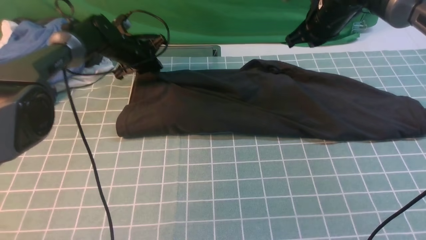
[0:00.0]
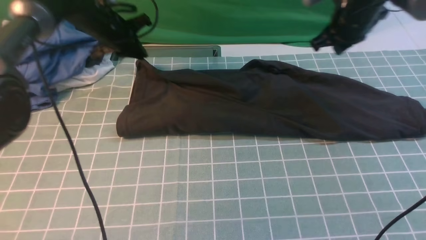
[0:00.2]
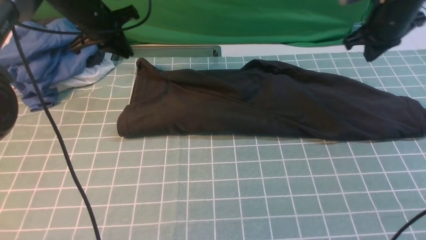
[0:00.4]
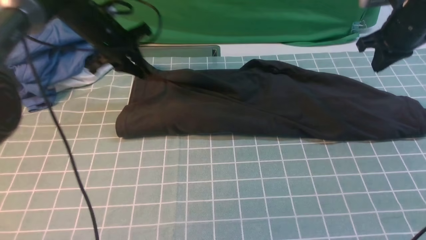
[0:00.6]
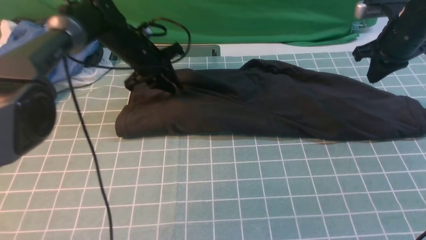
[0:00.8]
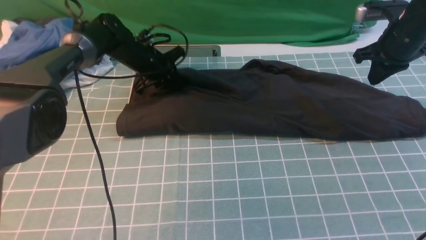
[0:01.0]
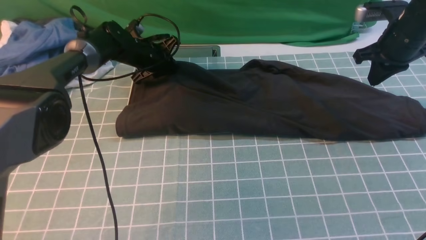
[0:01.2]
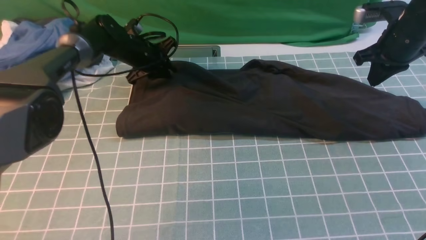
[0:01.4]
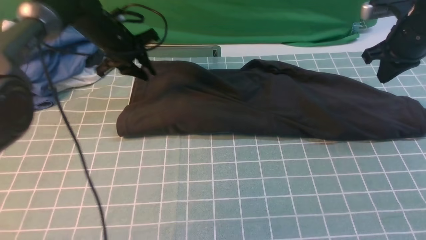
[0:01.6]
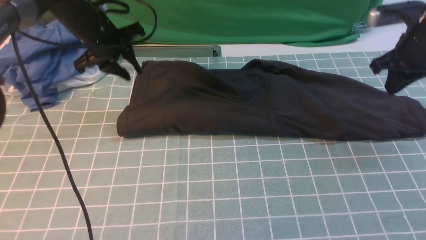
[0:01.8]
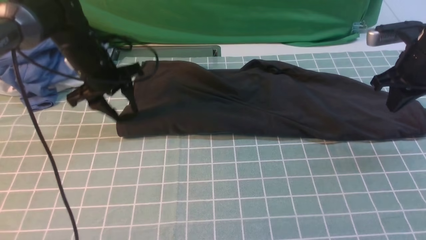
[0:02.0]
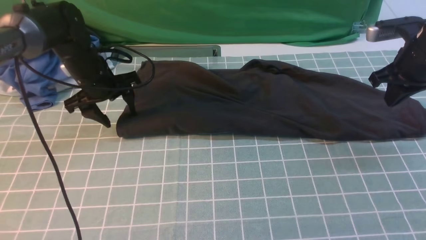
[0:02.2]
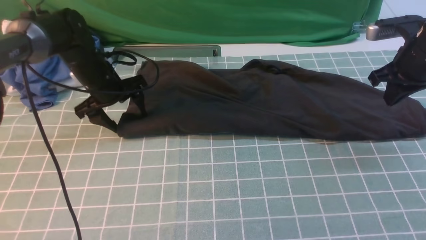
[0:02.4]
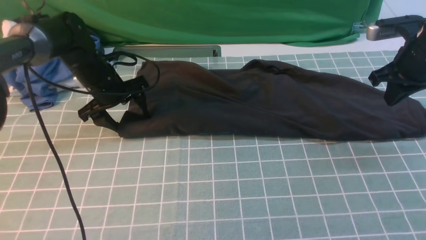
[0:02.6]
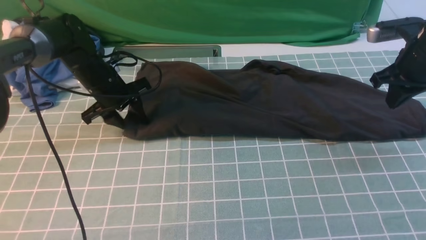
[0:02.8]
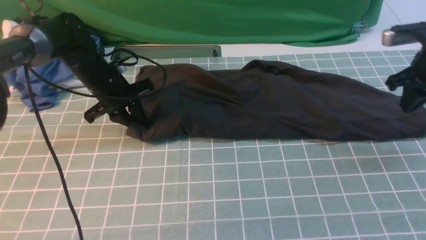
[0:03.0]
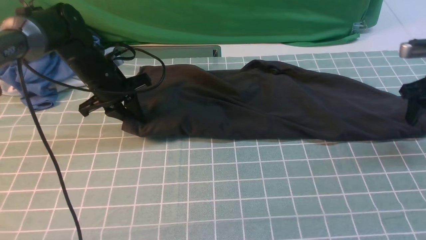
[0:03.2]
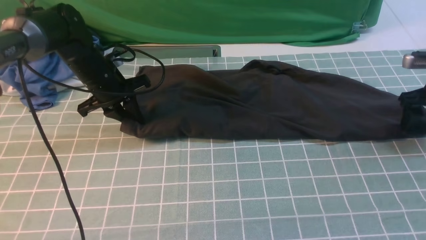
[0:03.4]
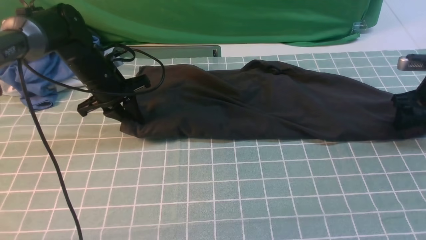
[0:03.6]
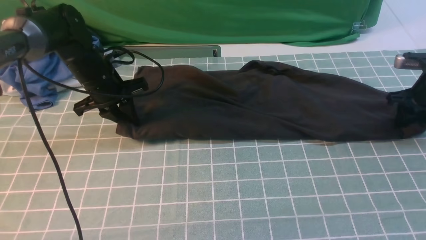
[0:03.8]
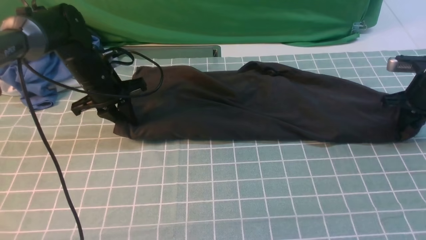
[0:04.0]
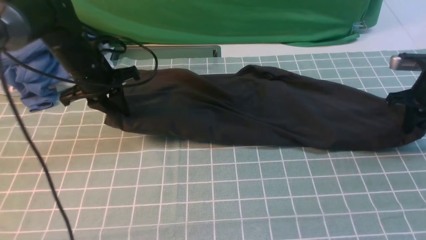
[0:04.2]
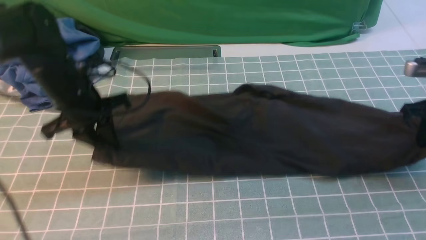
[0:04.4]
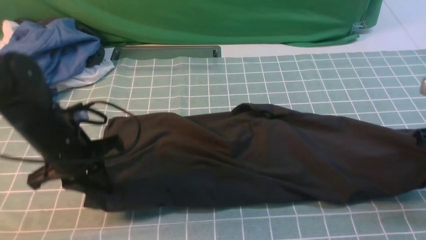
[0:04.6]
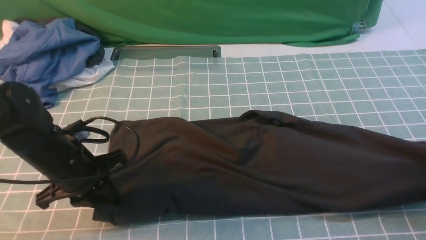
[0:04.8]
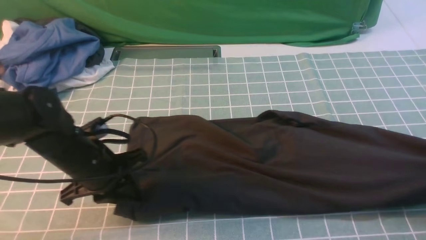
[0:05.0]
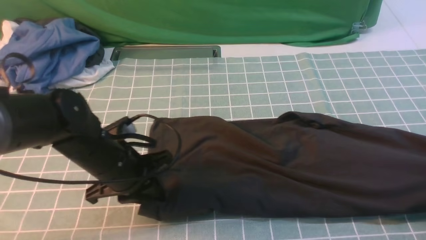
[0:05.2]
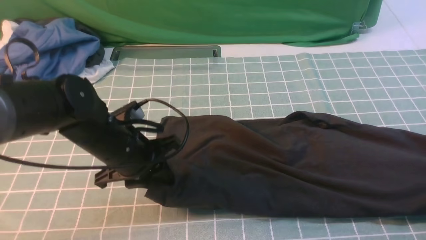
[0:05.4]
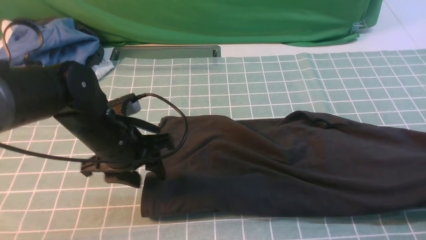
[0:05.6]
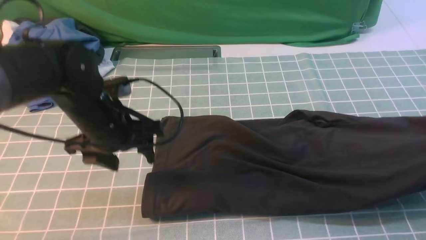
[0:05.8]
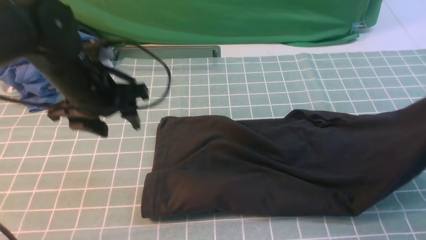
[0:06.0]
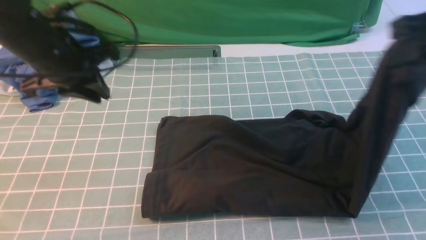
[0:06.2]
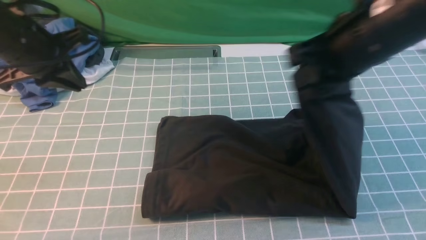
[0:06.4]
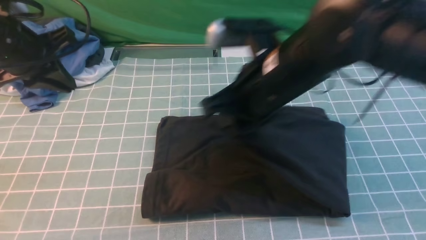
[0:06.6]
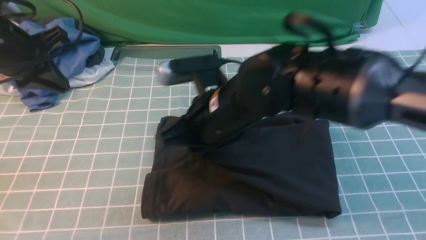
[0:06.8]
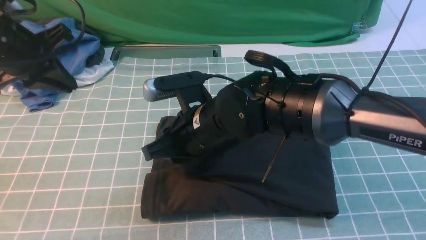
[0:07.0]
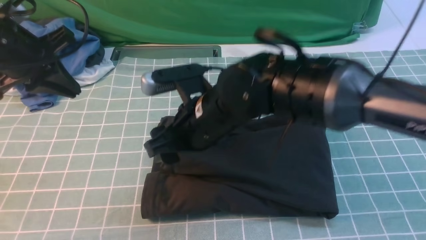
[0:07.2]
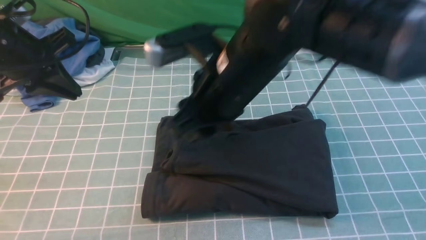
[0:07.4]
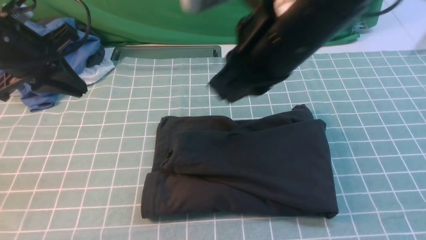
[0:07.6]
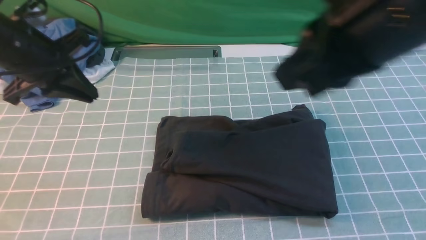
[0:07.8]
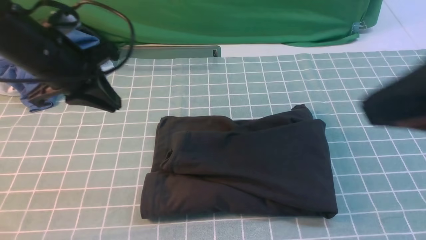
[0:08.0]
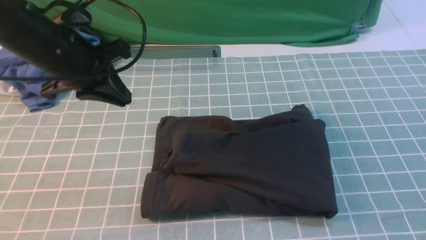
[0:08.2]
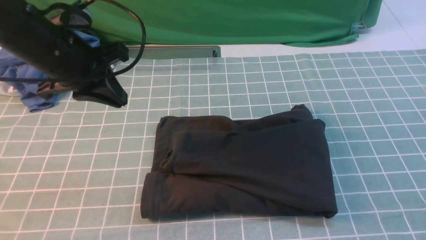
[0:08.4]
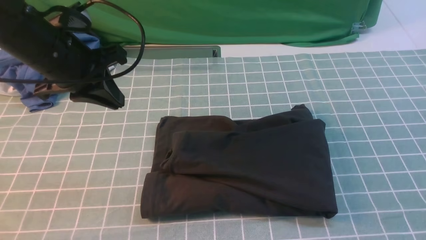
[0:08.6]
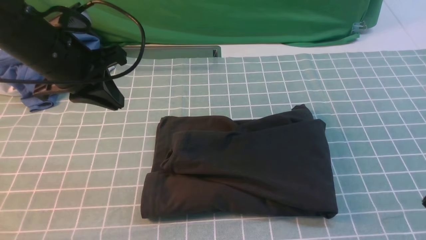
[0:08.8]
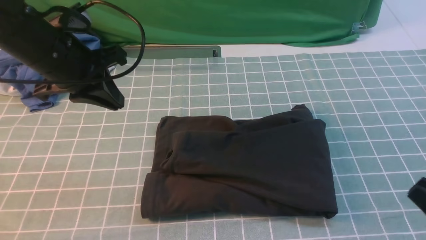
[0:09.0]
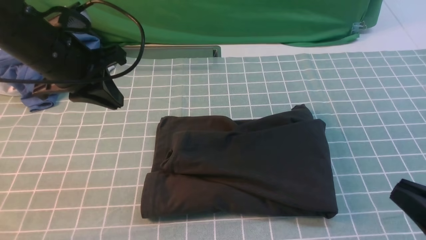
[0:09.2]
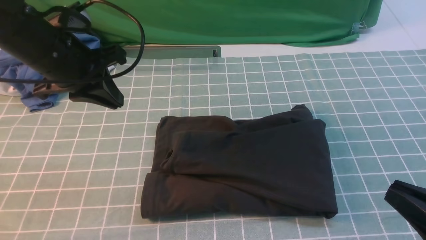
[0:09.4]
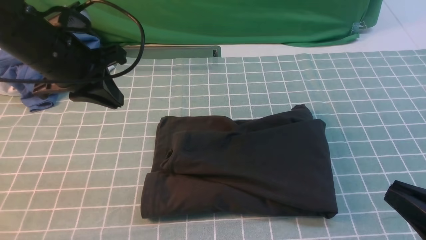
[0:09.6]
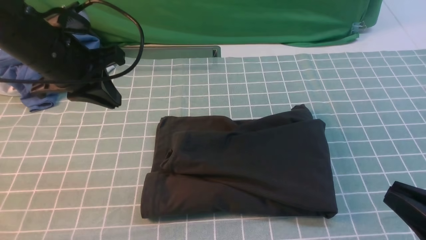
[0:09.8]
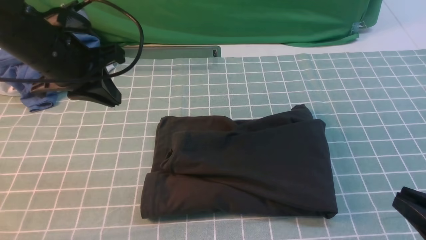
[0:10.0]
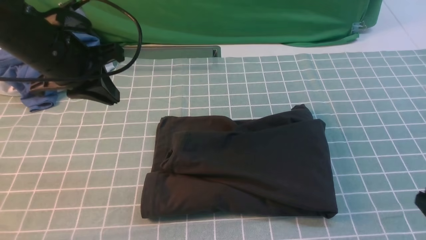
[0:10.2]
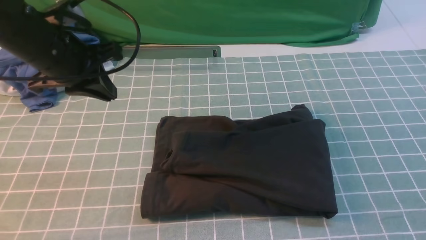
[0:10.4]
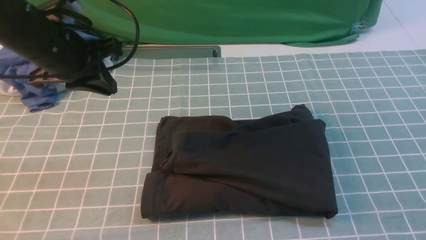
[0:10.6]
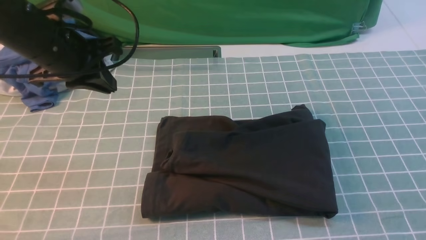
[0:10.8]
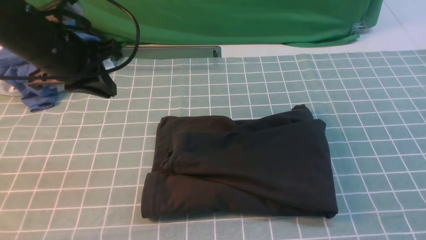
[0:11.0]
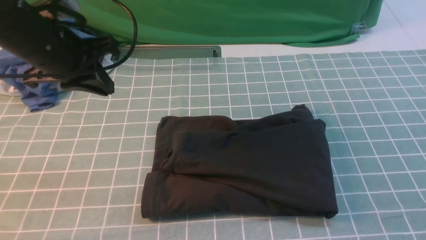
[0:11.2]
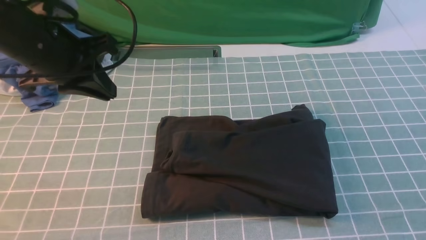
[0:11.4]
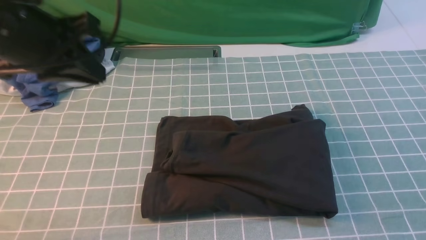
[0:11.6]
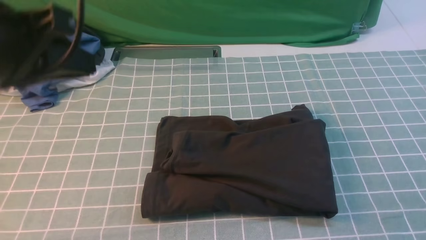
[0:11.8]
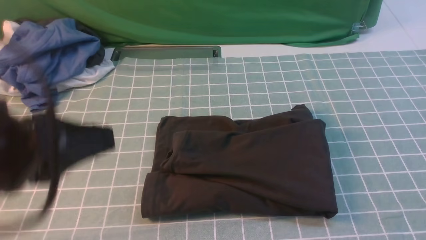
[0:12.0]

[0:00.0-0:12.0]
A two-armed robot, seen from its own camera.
Step, 0:00.4 to 0:05.4: use the right arm to clamp the right edge of the fabric.
Step, 0:05.8 to 0:07.4: use the right arm to drag the right edge of the fabric to the left and folds it over the left edge.
0:00.0 to 0:01.6: The right gripper travels to the right and backward by roughly 10 cm; the left gripper moves up and down over some 10 cm, changing direction 2 times, and opens its fingers.
0:01.6 to 0:03.0: The left gripper is displaced backward by approximately 5 cm, and opens, then closes again. Meanwhile the right gripper moves approximately 5 cm, and opens.
0:03.0 to 0:04.4: The right gripper travels backward by about 5 cm, and closes its fingers. Meanwhile the left gripper travels backward by some 10 cm.
0:04.4 to 0:06.0: The left gripper moves upward, roughly 5 cm, and opens; the right gripper travels upward and backward by approximately 15 cm.
0:06.0 to 0:07.6: The left gripper travels to the left by approximately 10 cm, and closes its fingers. Meanwhile the right gripper travels to the left by about 25 cm, and opens, then closes once more.
0:07.6 to 0:09.0: The left gripper goes approximately 5 cm to the right; the right gripper travels to the right, backward and downward by approximately 30 cm.
0:10.4 to 0:12.0: The left gripper goes about 20 cm backward.

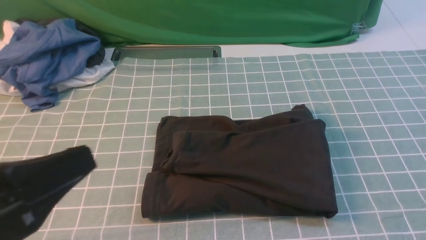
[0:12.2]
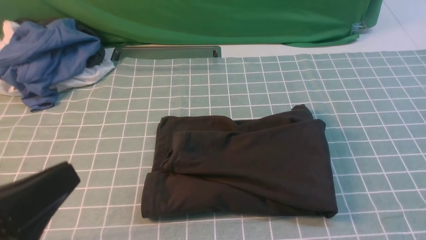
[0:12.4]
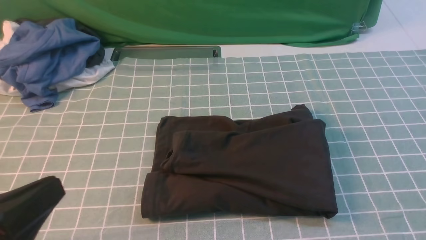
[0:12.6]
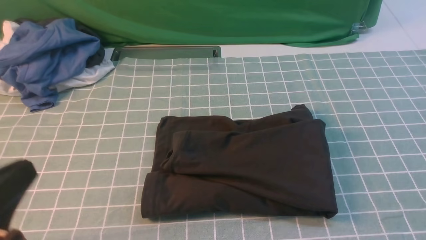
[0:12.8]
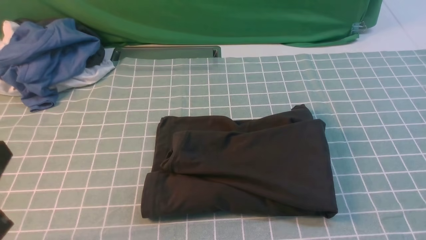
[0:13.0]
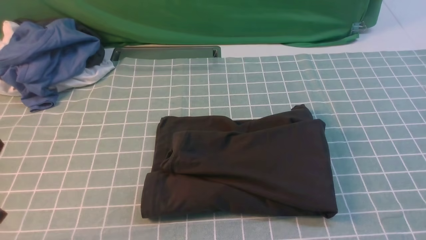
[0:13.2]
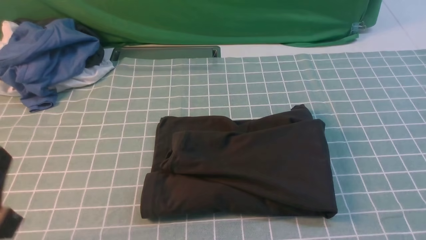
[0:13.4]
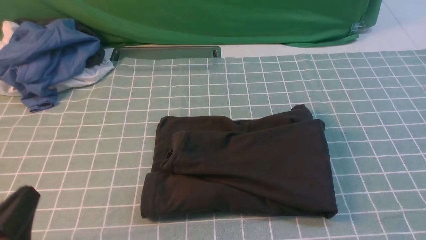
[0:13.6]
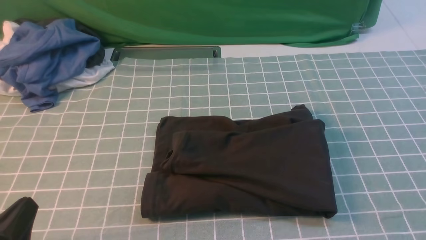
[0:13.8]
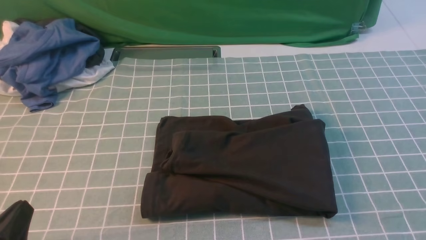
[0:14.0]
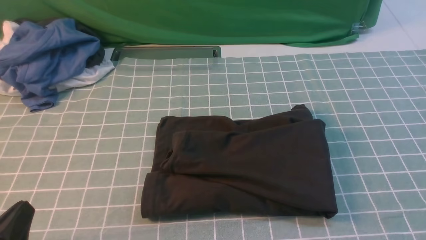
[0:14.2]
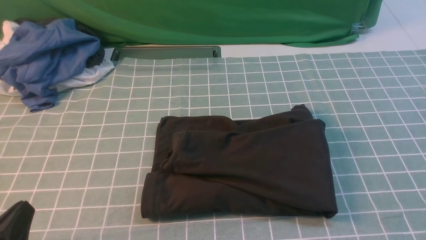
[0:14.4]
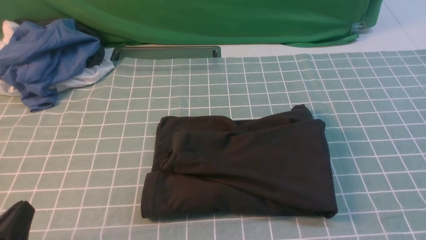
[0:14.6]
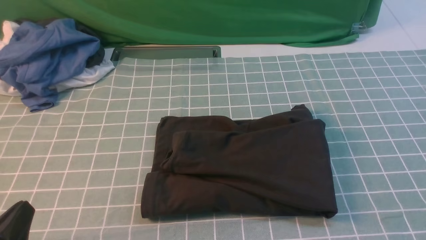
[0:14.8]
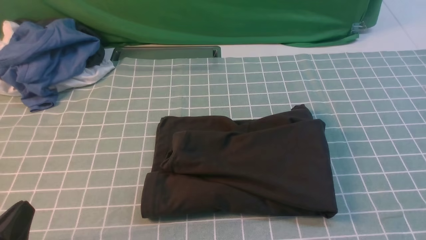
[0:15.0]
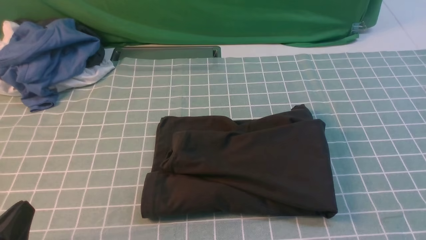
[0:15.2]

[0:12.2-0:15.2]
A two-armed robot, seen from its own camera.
0:12.2 to 0:13.8: The left gripper is displaced downward by approximately 15 cm.
0:13.8 to 0:15.2: Both grippers stay about where they are.

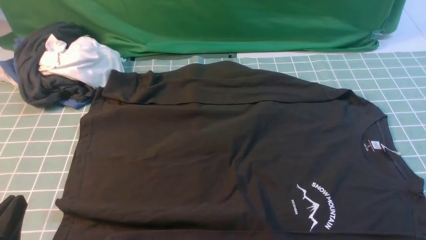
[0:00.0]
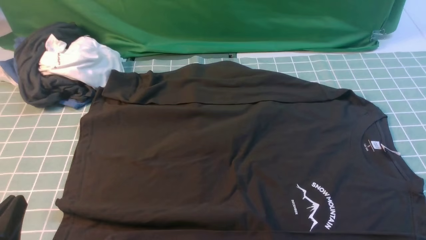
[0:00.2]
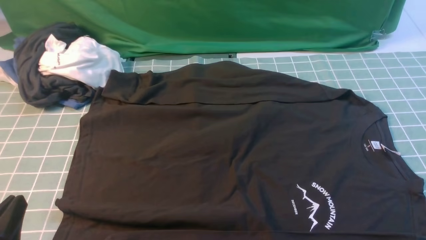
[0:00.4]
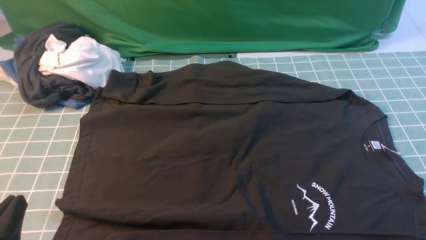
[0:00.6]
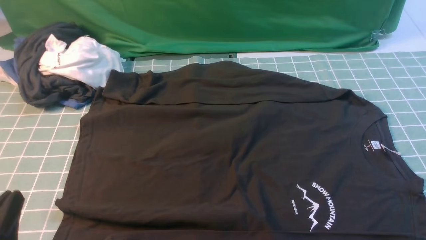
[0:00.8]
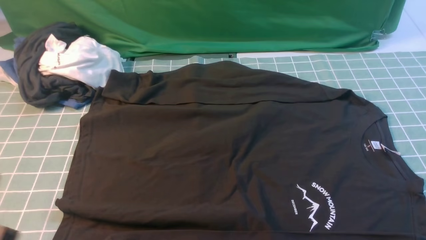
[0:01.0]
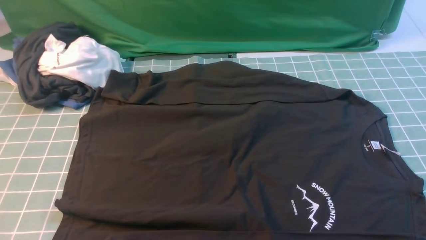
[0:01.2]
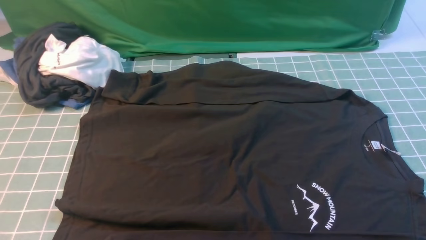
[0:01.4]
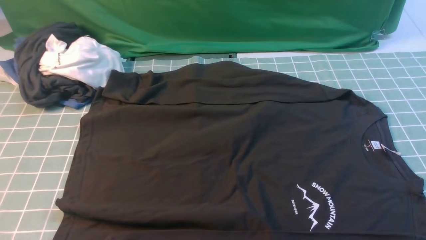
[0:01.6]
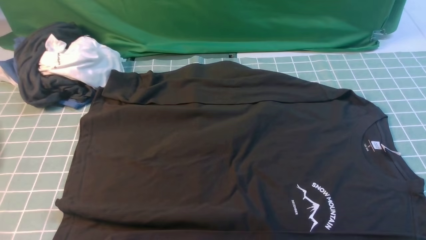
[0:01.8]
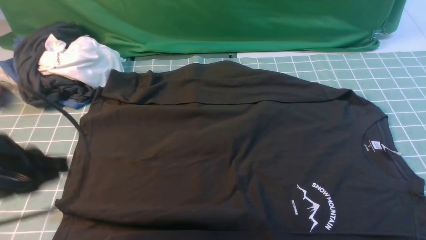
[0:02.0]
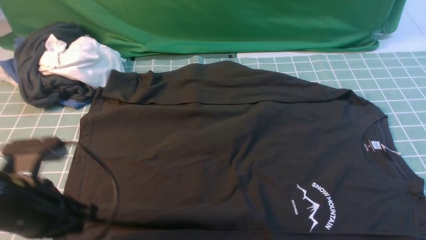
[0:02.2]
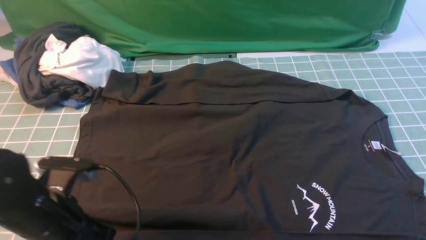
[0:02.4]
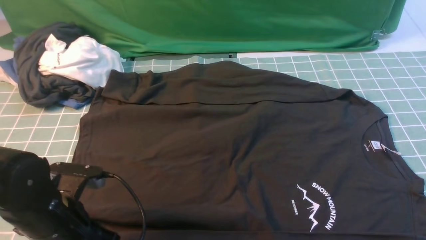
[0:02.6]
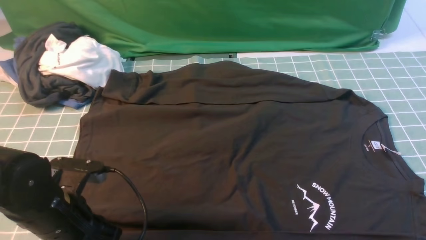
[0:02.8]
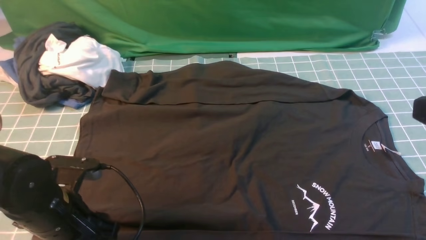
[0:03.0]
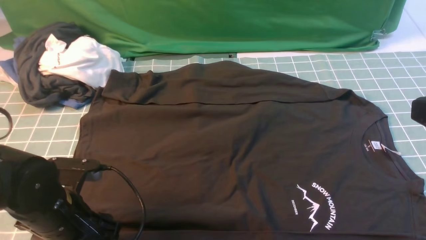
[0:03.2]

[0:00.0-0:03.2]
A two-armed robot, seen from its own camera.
0:00.0 to 0:01.6: The left gripper goes about 15 cm upward.
0:01.6 to 0:03.2: The right gripper travels upward, to the left and forward by roughly 15 cm, and closes, while the left gripper is displaced downward and forward by roughly 25 cm, and opens its fingers.
